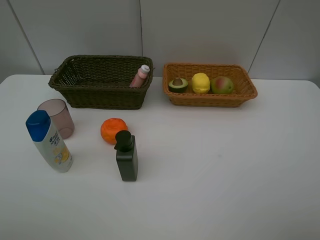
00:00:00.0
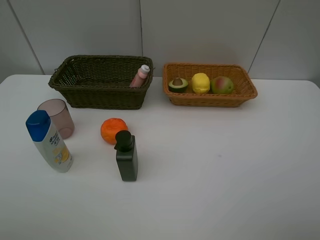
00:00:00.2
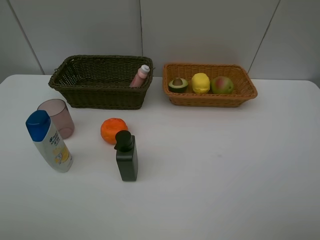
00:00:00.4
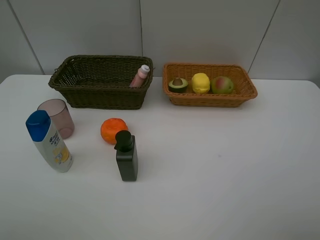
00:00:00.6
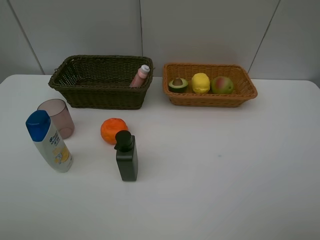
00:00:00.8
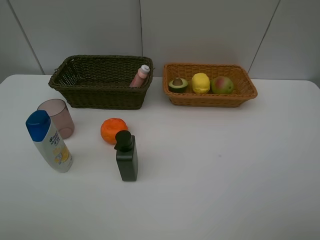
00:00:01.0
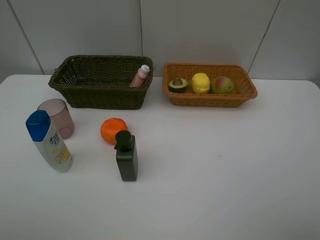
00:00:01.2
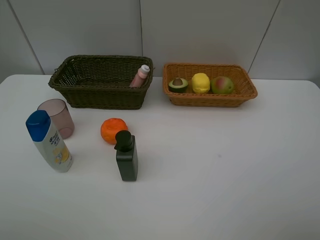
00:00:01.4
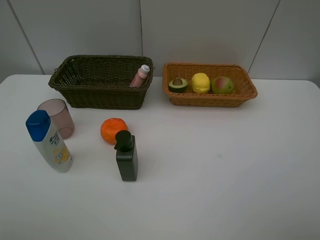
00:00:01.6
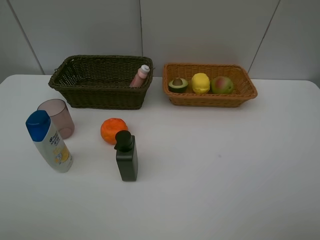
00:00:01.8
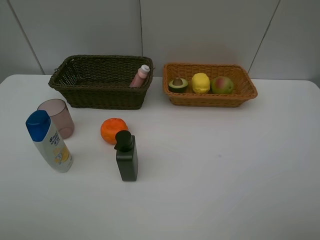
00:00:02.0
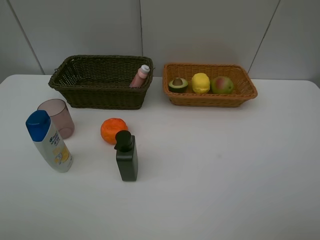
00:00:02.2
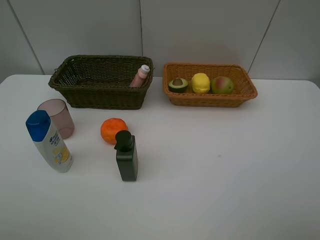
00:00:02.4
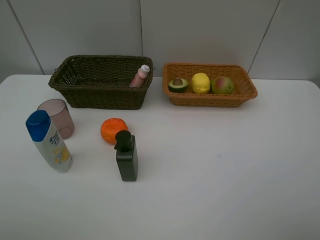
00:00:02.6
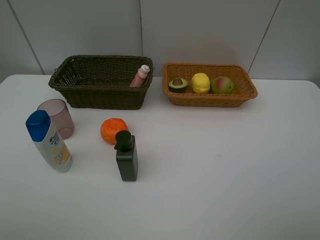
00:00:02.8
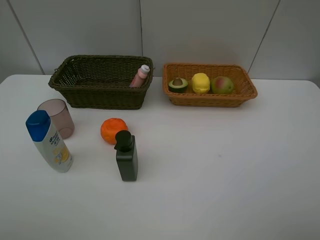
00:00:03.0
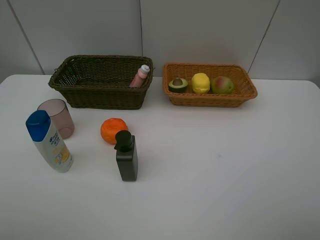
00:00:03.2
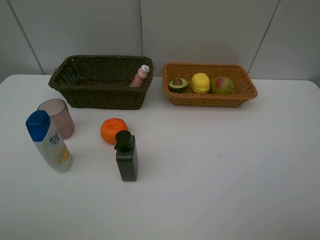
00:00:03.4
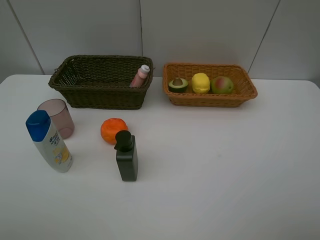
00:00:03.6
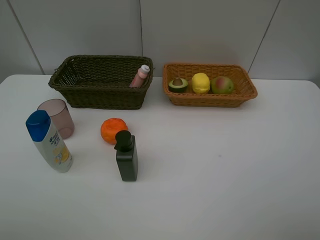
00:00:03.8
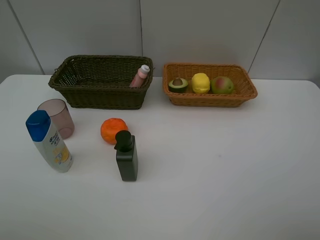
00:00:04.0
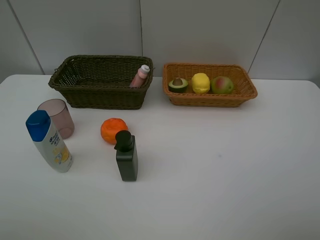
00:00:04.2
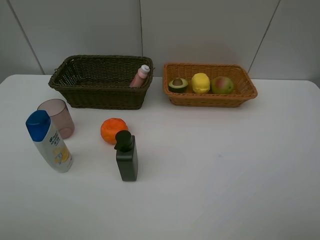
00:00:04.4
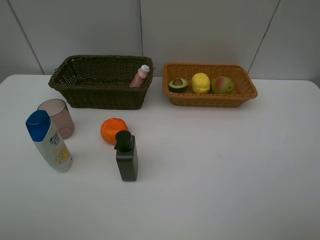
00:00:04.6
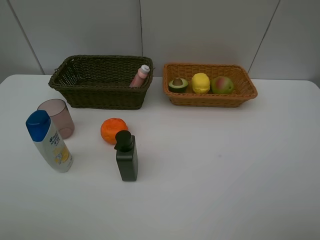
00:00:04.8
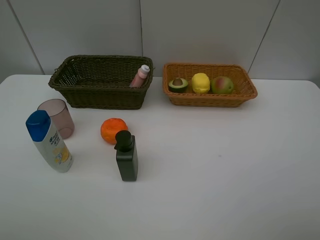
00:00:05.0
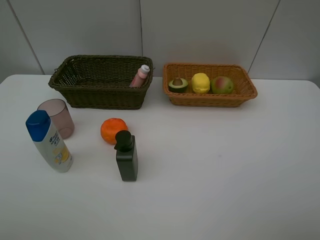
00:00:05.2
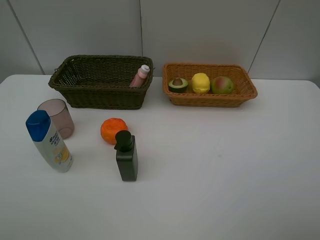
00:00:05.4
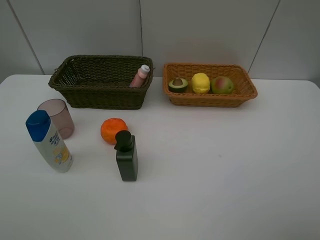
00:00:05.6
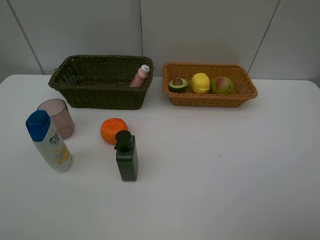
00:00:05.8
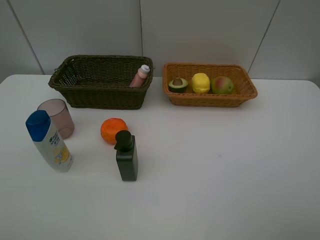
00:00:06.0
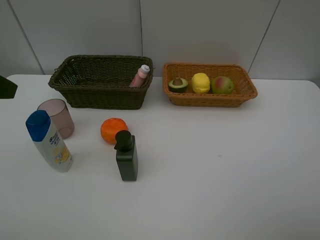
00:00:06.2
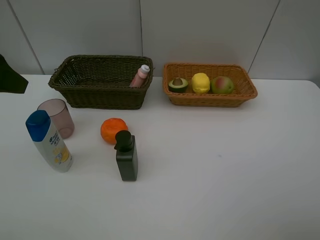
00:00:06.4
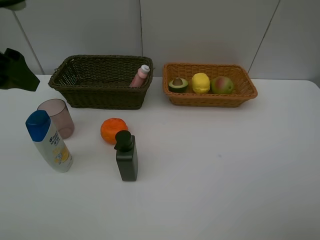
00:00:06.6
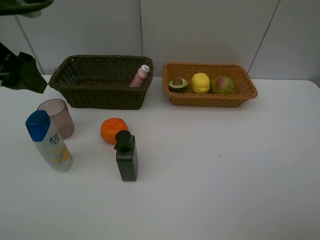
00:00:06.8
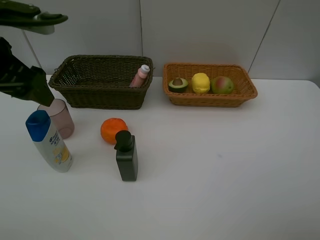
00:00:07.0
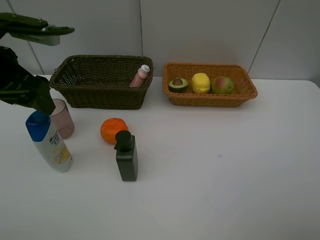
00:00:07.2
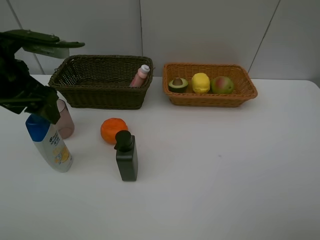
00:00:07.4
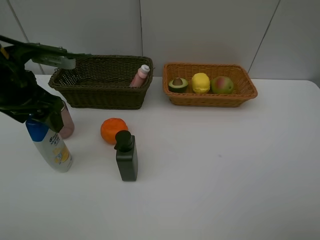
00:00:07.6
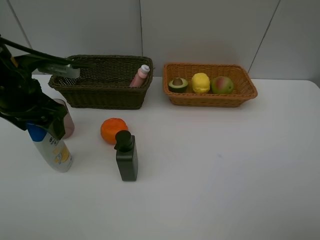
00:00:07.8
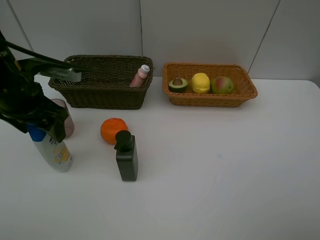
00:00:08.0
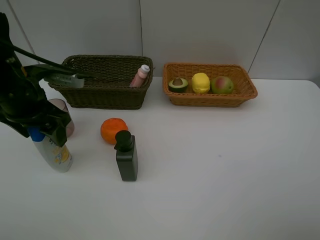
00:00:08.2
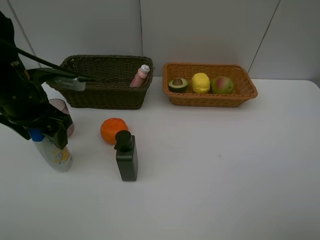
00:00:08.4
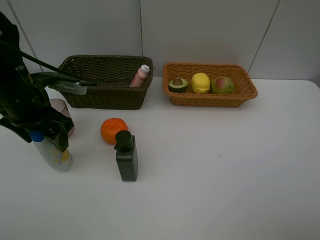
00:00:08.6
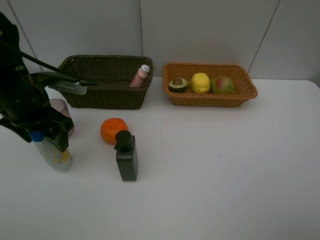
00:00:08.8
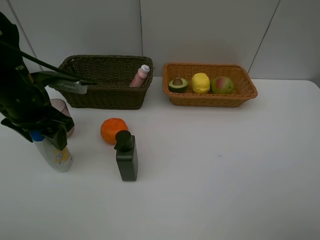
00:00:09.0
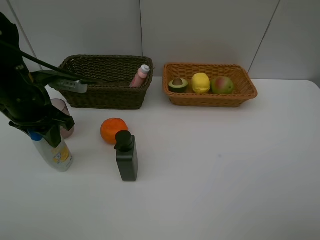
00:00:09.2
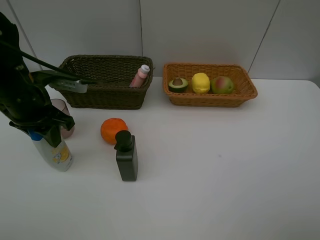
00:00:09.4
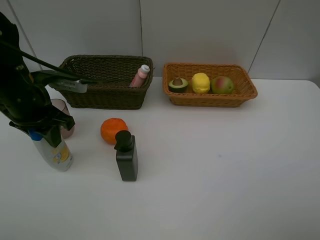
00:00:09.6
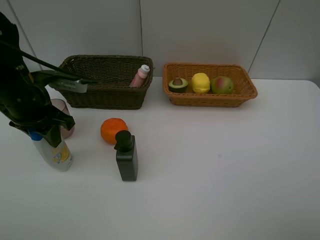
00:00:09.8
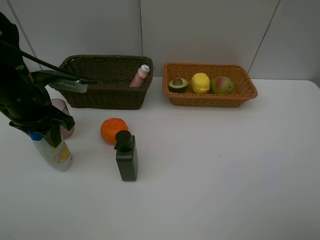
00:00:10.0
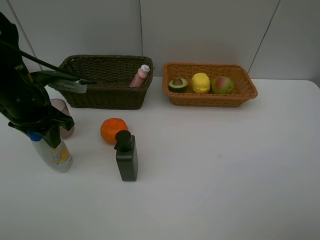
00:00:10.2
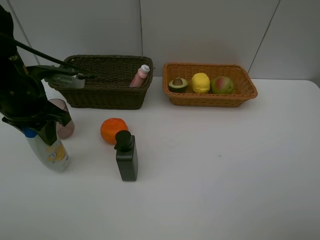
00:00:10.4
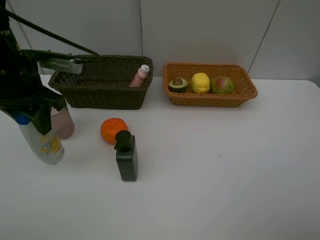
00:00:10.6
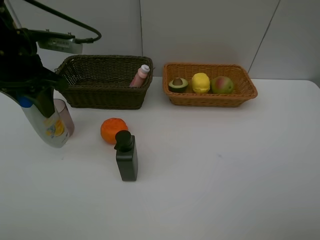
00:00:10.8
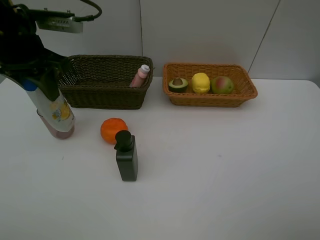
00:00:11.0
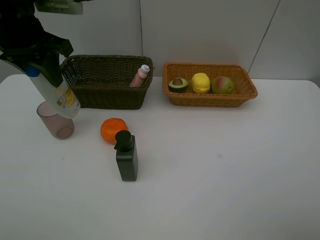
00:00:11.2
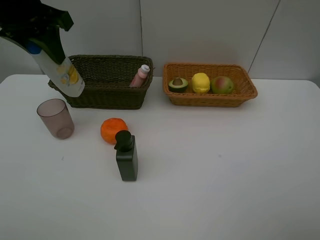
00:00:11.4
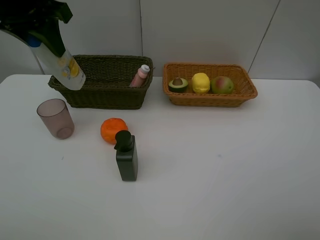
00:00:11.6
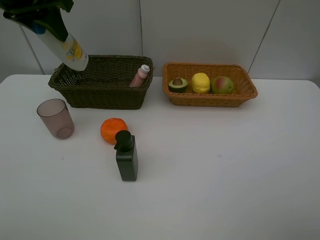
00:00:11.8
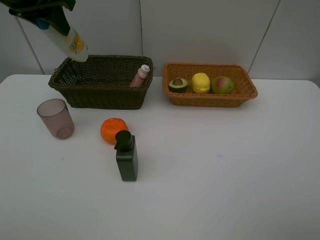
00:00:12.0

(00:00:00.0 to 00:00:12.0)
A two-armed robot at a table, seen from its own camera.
Task of the whole recording: Place multiple objects separately in different baskets.
Step, 00:00:00.0 - 00:00:10.4: Pick up the shampoo with left gripper.
00:00:00.0 - 00:00:04.4: Neither gripper changes place.
00:00:06.0 - 00:00:07.6: The left gripper moves forward and downward, some 15 cm.
00:00:07.6 - 00:00:10.4: The grippers make only small movements.
00:00:10.4 - 00:00:12.0: The left gripper travels upward and forward by approximately 15 cm.

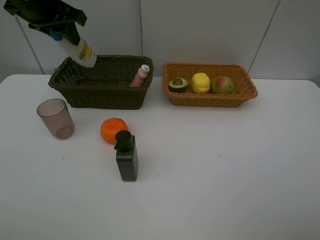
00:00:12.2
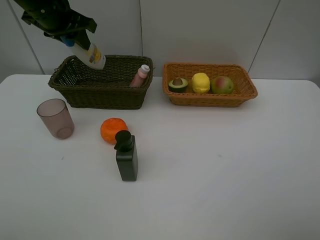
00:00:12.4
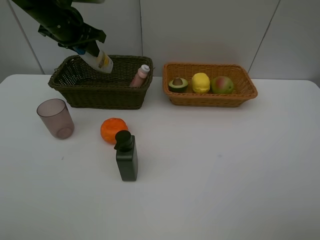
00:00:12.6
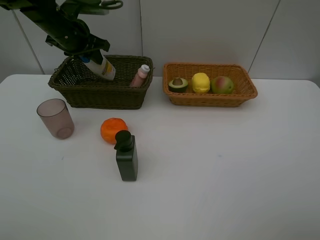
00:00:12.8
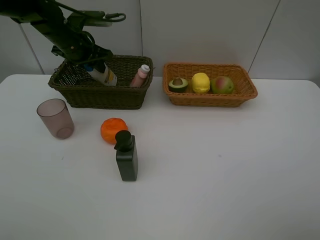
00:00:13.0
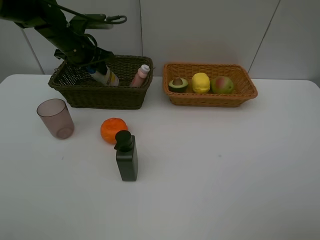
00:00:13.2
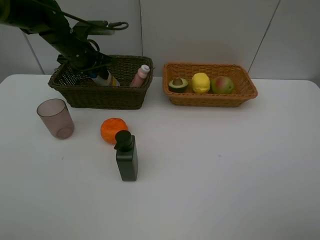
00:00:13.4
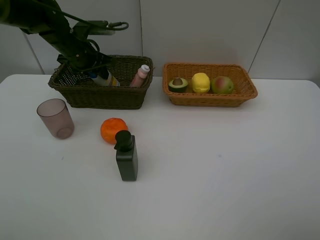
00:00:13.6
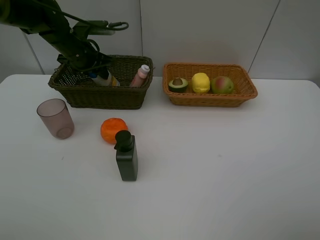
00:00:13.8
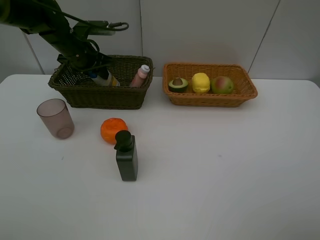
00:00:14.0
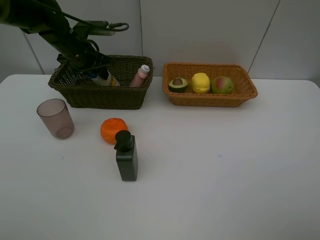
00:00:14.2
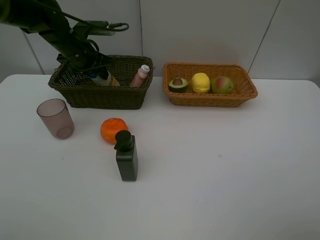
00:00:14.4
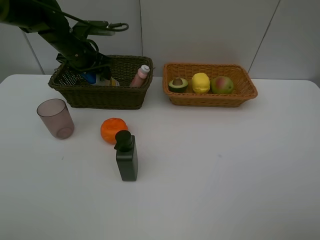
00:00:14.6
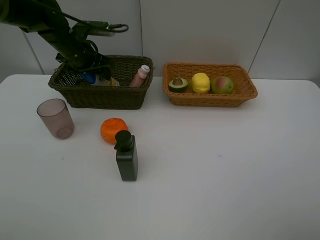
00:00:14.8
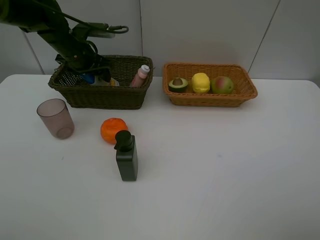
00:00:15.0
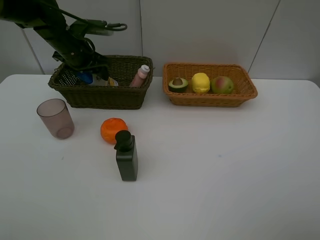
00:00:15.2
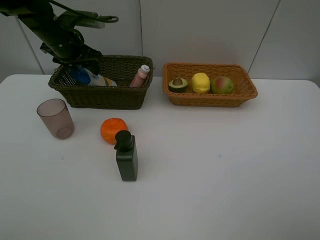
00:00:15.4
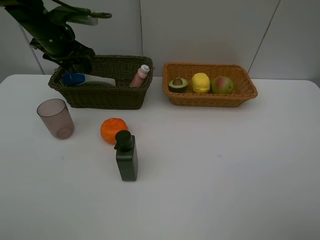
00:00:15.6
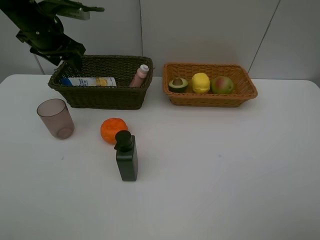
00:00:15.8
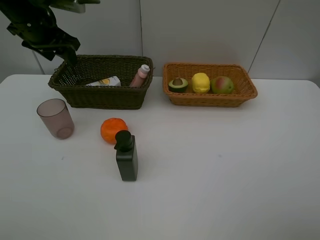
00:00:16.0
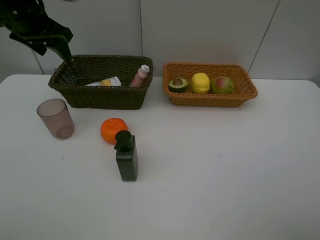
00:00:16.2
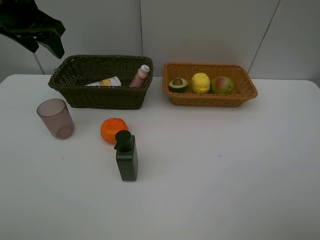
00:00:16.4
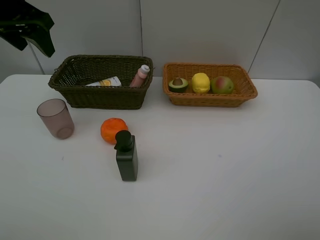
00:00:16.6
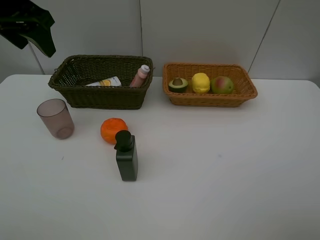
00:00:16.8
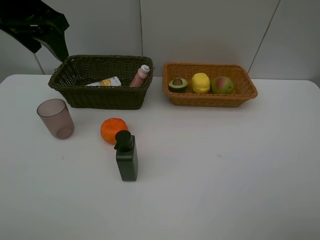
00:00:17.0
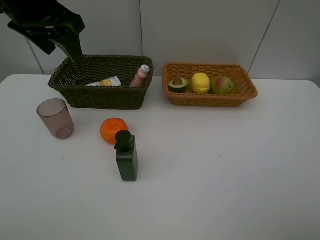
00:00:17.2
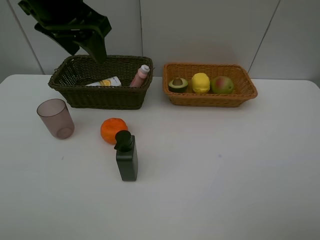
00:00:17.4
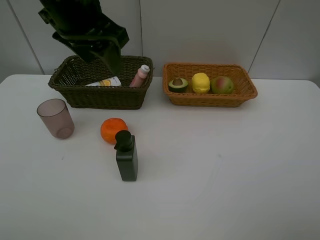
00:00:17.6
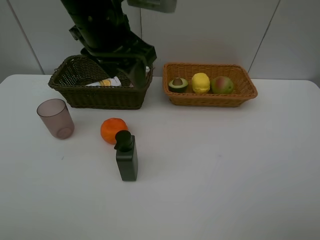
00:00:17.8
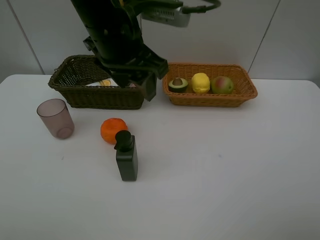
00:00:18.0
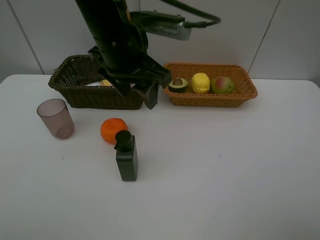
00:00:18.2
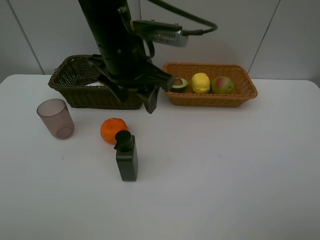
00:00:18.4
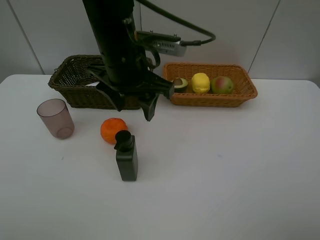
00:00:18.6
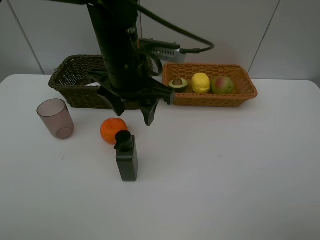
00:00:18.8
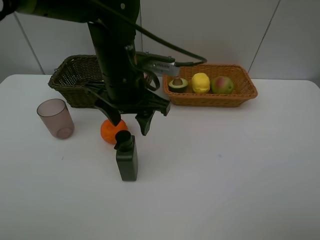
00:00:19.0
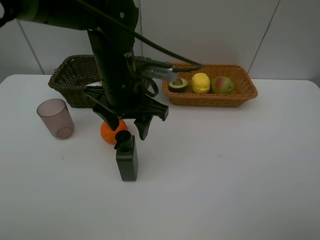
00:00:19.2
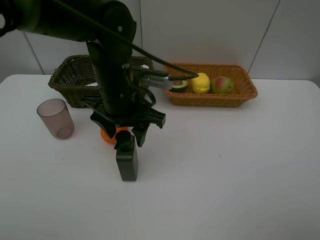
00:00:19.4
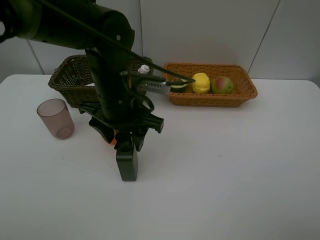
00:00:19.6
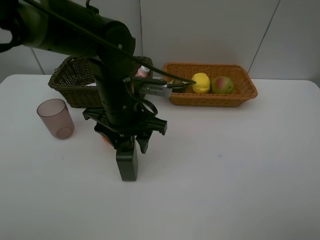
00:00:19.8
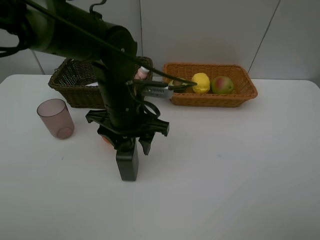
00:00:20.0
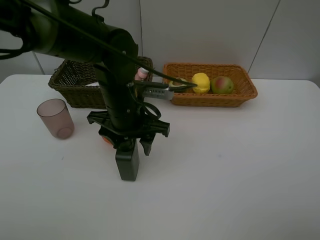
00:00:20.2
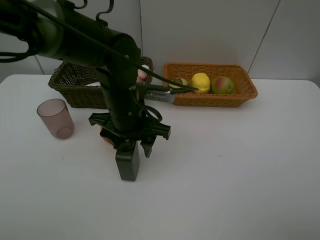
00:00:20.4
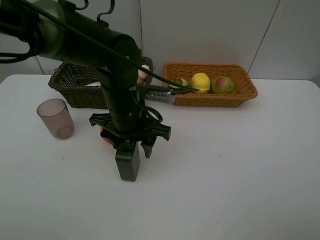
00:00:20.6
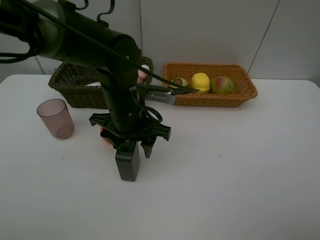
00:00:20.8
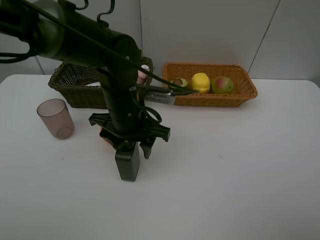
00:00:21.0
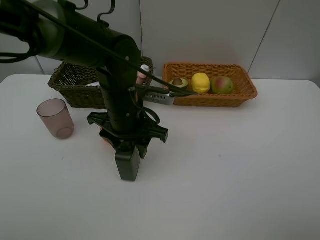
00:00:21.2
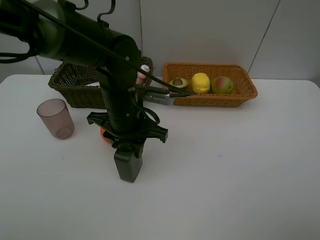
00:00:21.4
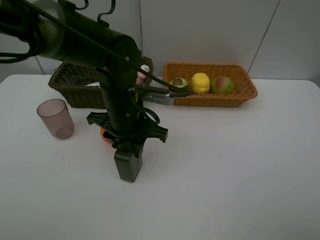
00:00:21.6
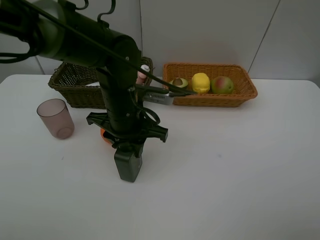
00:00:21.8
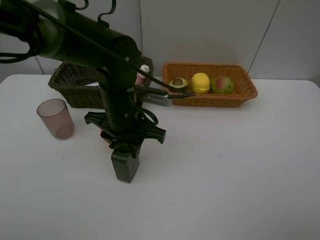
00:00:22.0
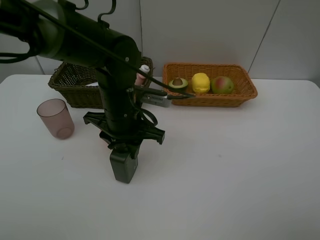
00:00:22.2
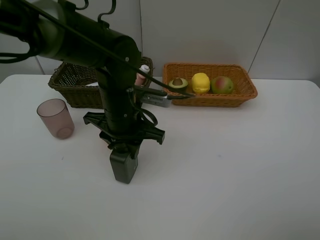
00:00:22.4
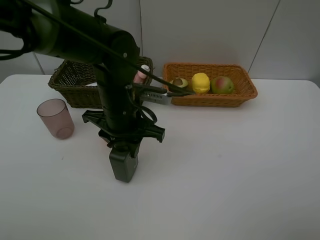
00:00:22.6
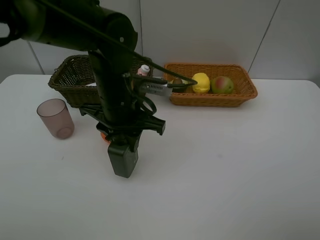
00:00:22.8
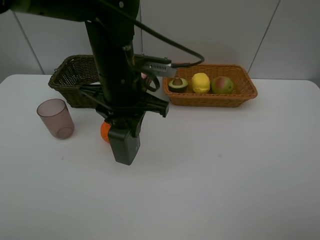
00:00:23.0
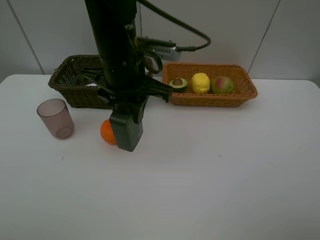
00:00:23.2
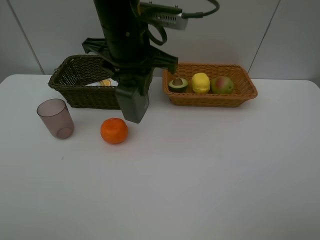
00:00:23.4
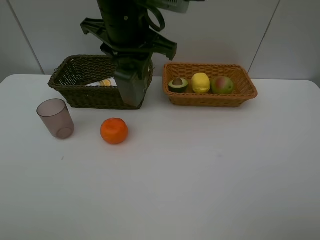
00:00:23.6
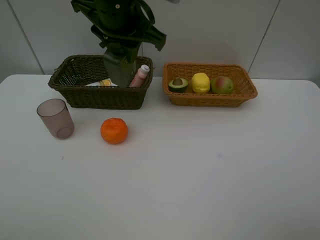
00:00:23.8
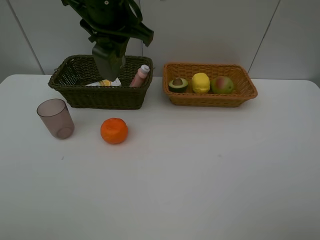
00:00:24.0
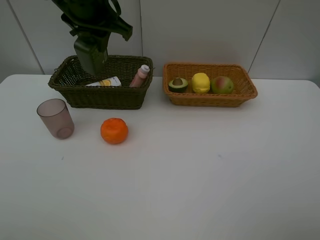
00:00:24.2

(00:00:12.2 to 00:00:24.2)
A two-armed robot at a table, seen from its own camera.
Task of the whole recording: Place multiple objects separately in different baskets.
Step, 00:00:12.2 - 00:00:15.8: Place the shampoo in the dark basket with left gripper.
00:00:12.2 - 00:00:13.8: The left gripper heads downward and forward, covering about 15 cm.
00:00:13.8 - 00:00:15.2: Both grippers stay about where they are.
00:00:15.2 - 00:00:16.6: The left gripper heads upward and backward, covering some 15 cm.
00:00:16.6 - 00:00:18.2: The left gripper goes approximately 20 cm to the right.
00:00:18.2 - 00:00:19.8: The left gripper moves downward, some 10 cm.
00:00:19.8 - 00:00:21.2: There are only small adjustments of the grippers.
00:00:21.2 - 00:00:22.6: The two grippers keep their place.
00:00:22.6 - 00:00:24.2: The left gripper heads upward and forward, covering roughly 20 cm.
